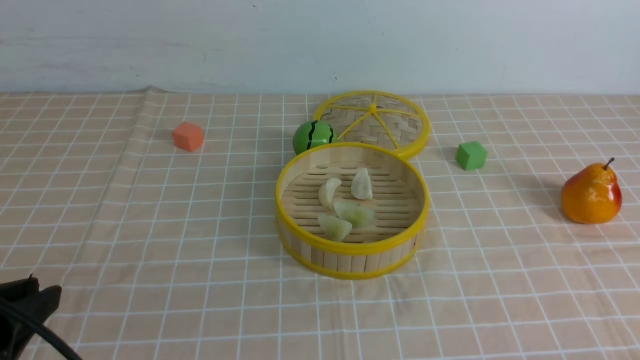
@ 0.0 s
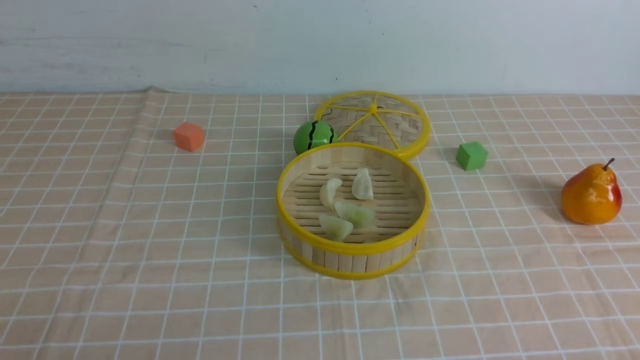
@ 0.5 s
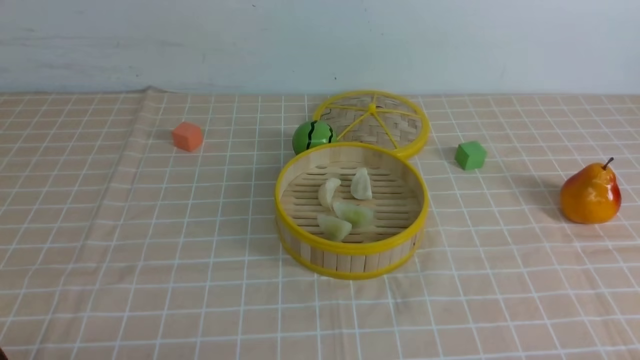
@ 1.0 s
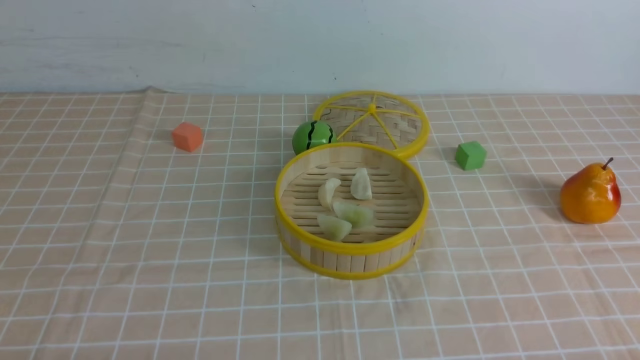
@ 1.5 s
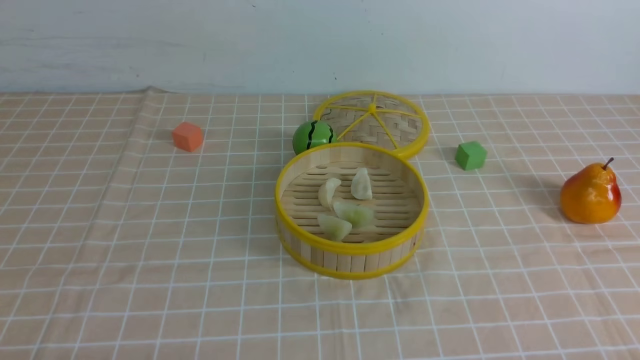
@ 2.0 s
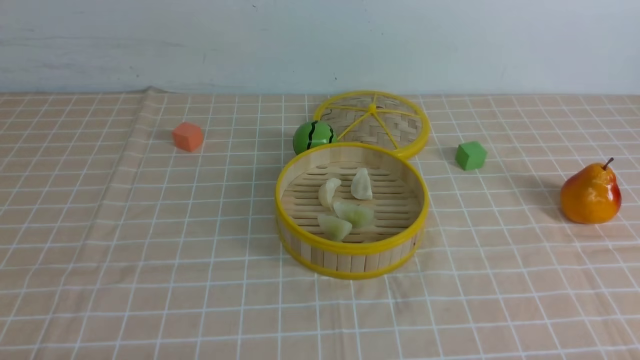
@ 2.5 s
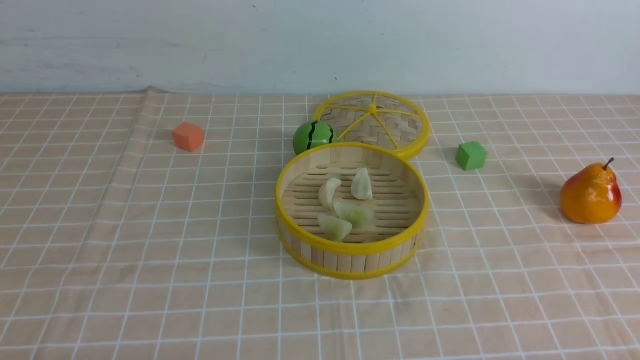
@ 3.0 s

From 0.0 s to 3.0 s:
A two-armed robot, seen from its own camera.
Task of the whole recording: put the dumplings into the steamer on the table with the brown tablecloth.
From 0.0 s to 1.5 s: The left gripper goes some 10 cm downward.
From 1.5 s to 3.0 s: Neither gripper changes place.
